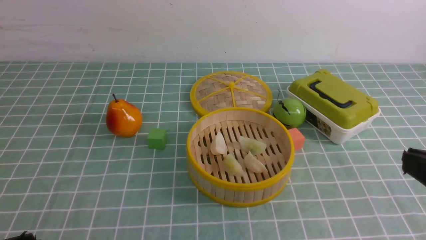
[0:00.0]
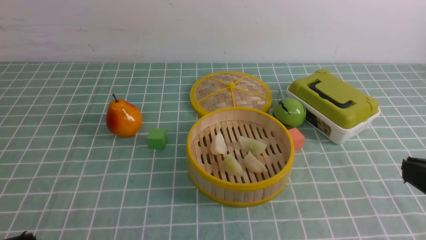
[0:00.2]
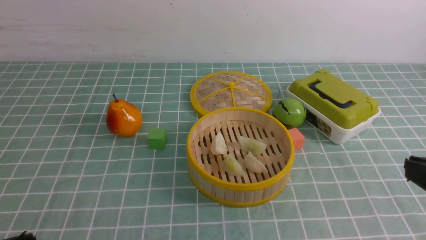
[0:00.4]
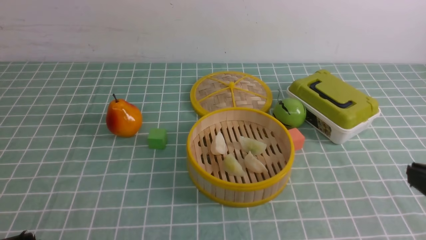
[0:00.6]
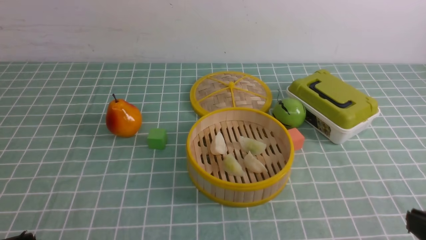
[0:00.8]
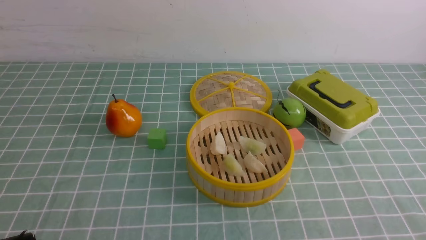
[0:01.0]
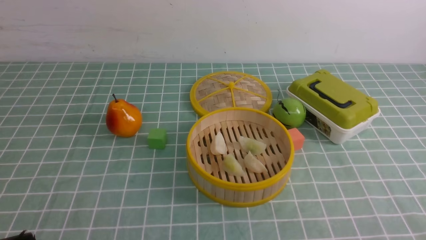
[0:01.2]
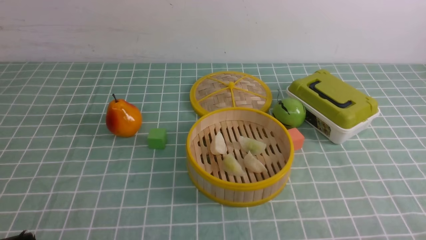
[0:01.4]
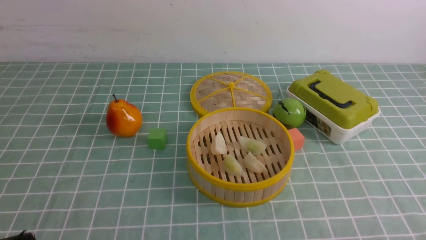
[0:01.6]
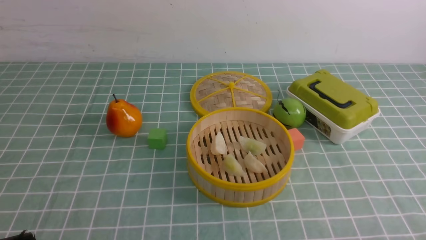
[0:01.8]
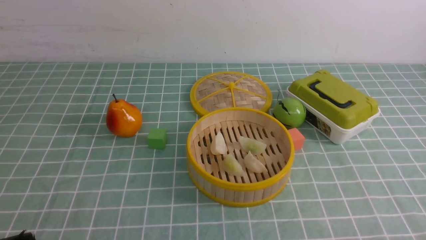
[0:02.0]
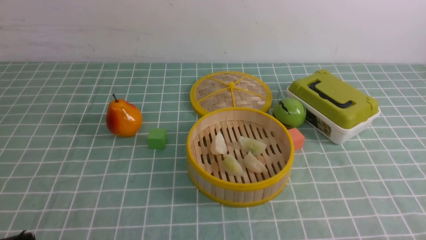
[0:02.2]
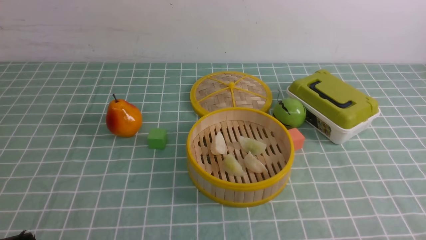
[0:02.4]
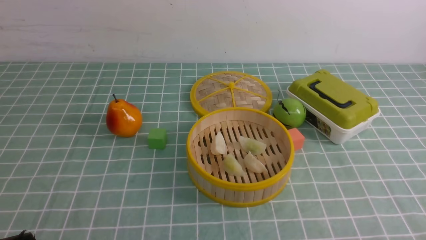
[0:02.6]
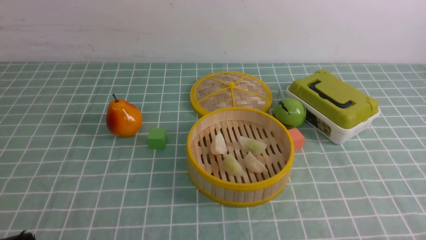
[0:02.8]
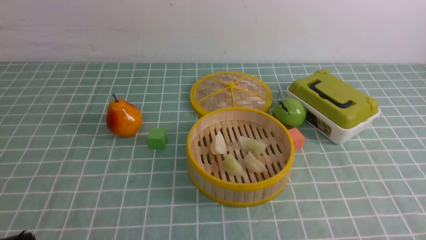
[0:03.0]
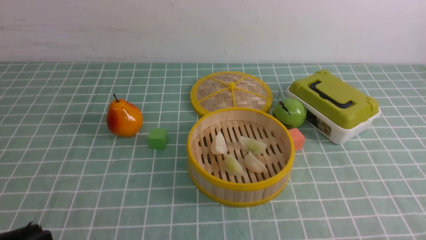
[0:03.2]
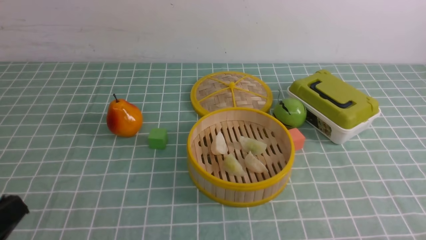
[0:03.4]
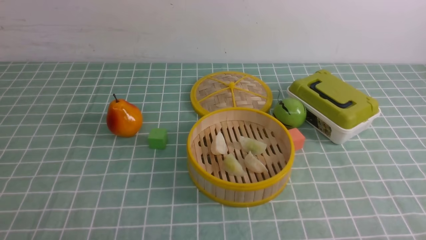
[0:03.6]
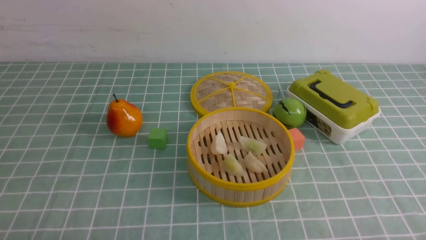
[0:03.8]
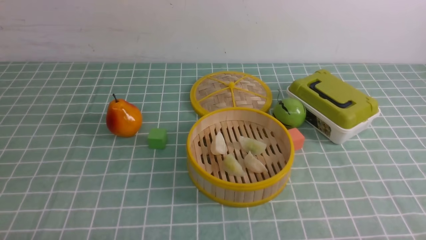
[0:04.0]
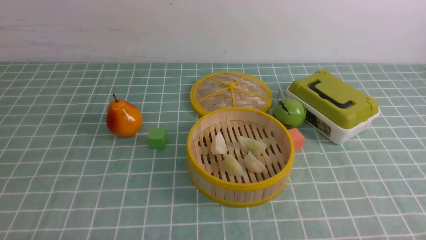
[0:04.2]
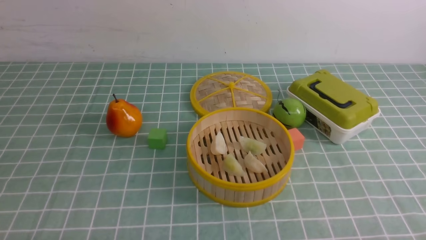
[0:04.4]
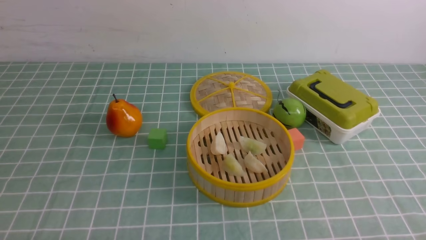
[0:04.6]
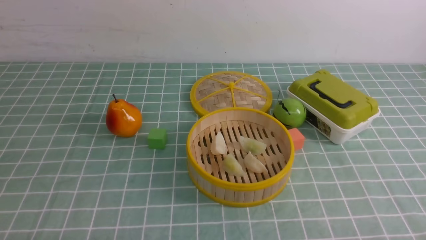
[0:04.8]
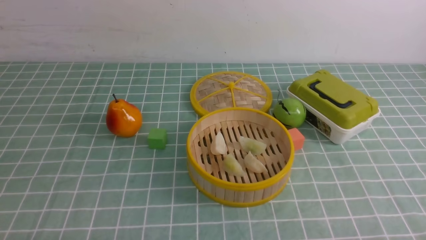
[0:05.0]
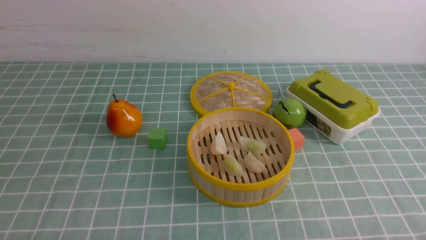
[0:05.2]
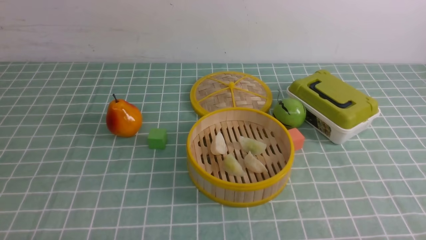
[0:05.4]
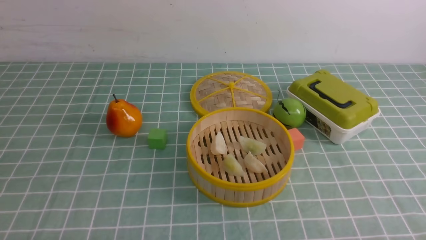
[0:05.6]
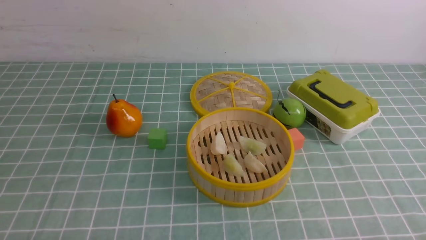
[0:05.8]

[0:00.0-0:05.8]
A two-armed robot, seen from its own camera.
Task of the whole recording: put the dumplings into the steamer on the table with the blue tablecloth.
0:00.0 to 0:01.4: The right gripper goes some 15 cm downward.
0:04.4 to 0:05.8: The two grippers keep their place.

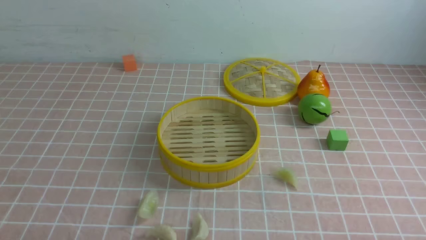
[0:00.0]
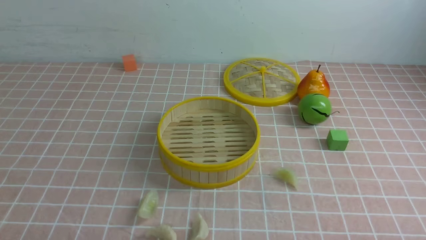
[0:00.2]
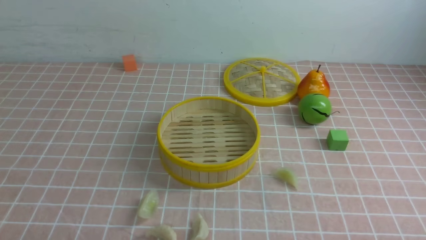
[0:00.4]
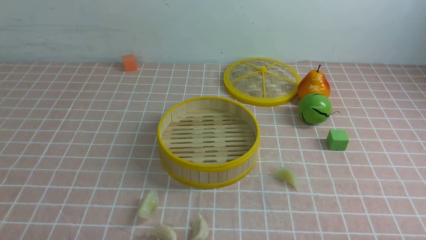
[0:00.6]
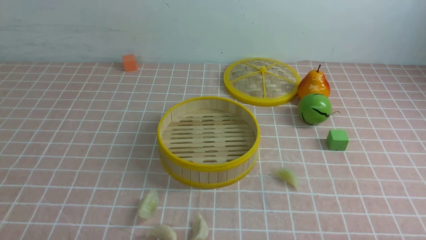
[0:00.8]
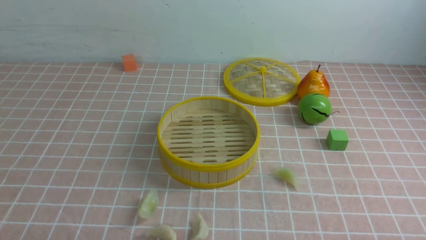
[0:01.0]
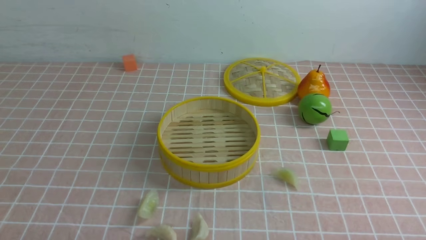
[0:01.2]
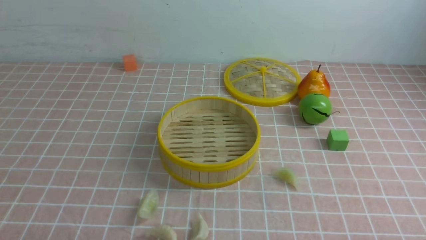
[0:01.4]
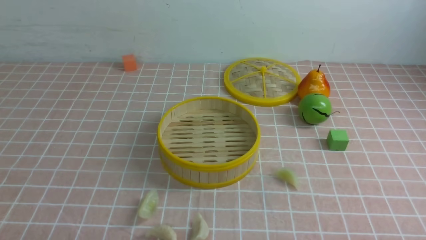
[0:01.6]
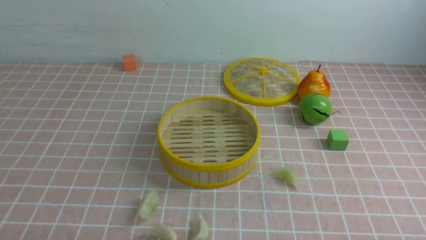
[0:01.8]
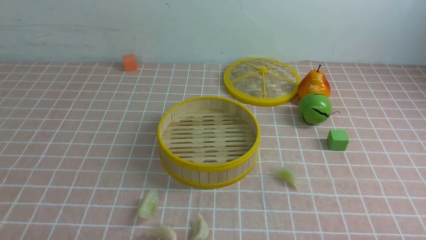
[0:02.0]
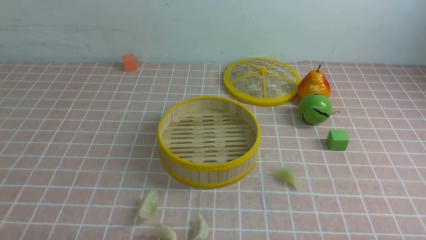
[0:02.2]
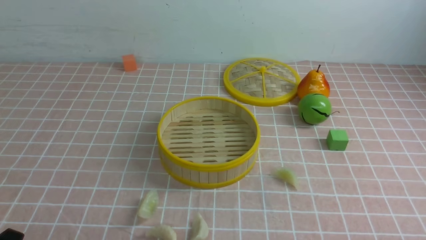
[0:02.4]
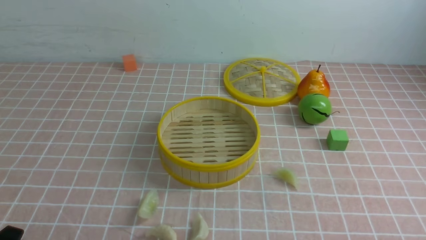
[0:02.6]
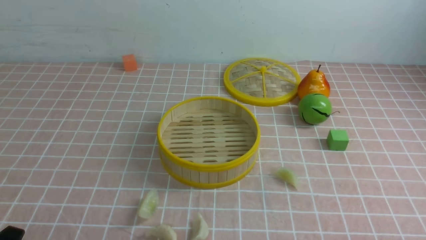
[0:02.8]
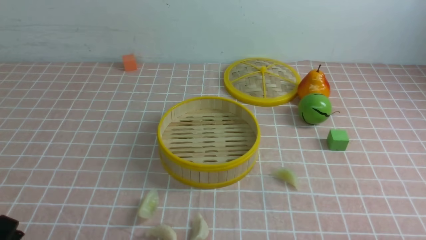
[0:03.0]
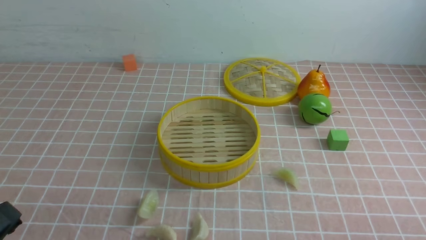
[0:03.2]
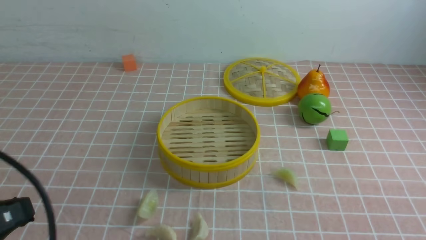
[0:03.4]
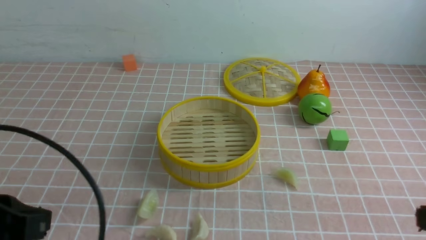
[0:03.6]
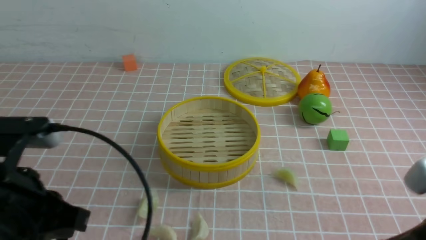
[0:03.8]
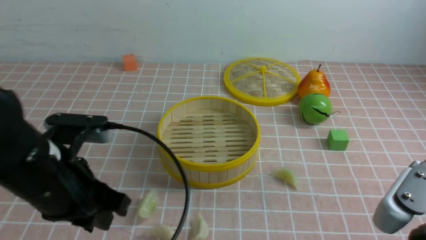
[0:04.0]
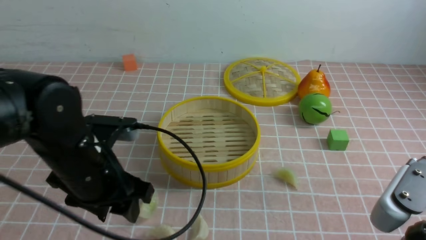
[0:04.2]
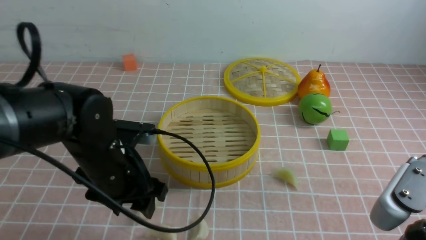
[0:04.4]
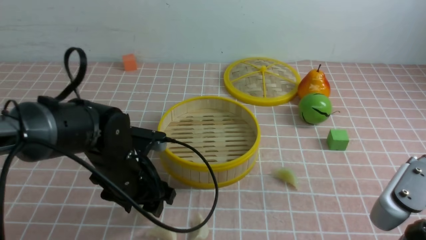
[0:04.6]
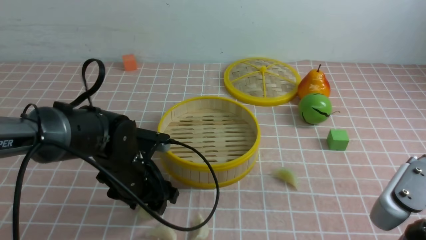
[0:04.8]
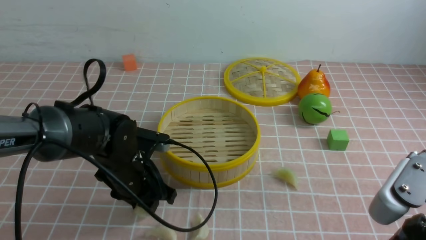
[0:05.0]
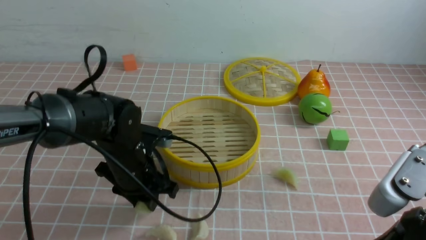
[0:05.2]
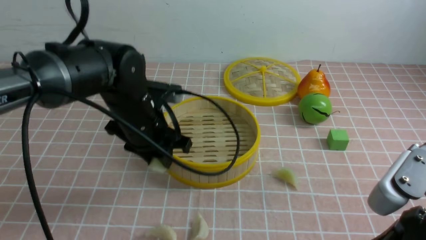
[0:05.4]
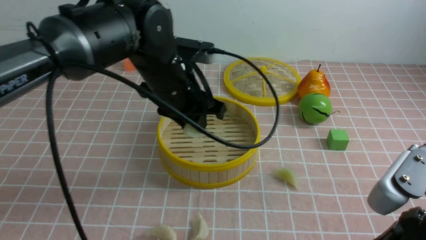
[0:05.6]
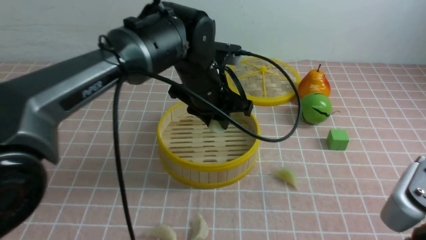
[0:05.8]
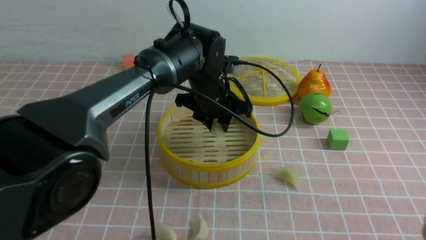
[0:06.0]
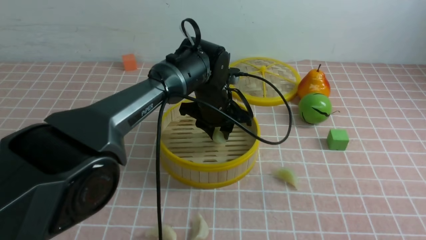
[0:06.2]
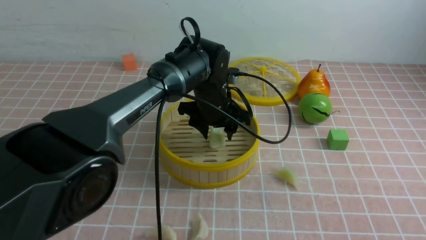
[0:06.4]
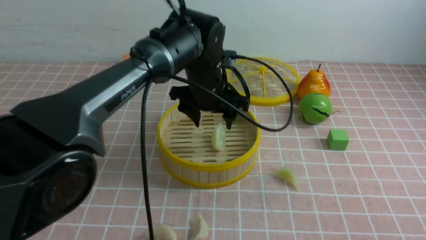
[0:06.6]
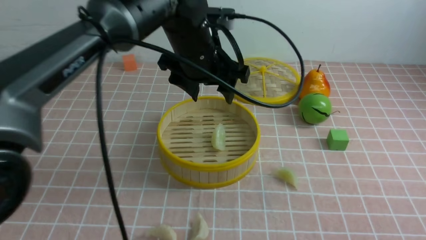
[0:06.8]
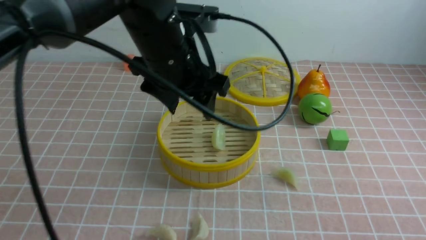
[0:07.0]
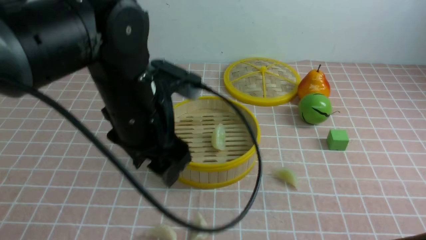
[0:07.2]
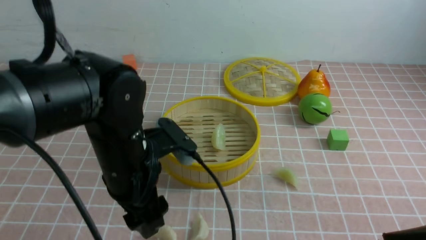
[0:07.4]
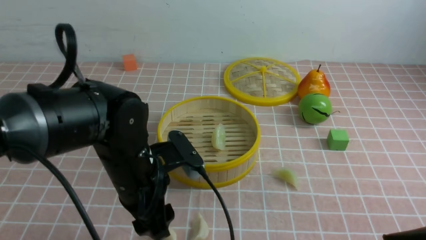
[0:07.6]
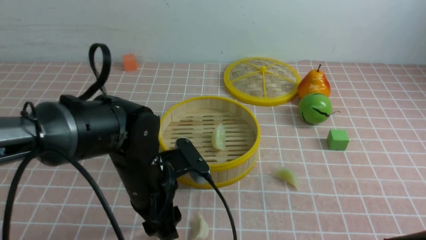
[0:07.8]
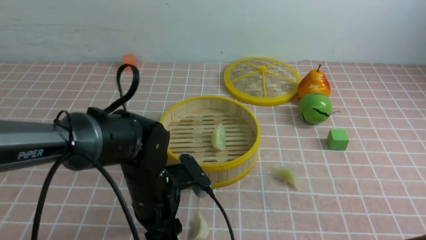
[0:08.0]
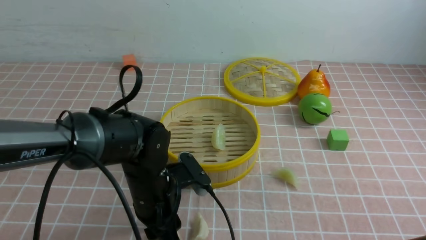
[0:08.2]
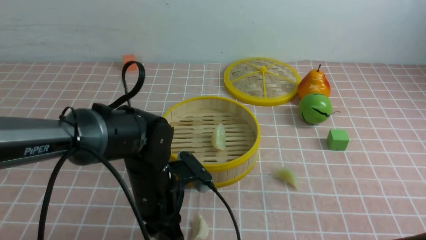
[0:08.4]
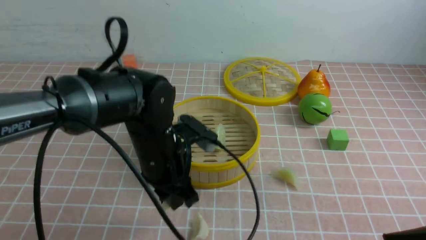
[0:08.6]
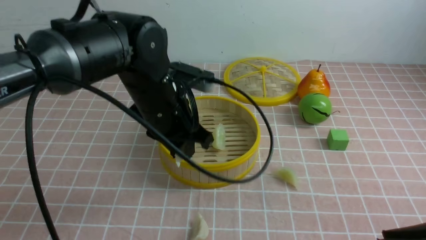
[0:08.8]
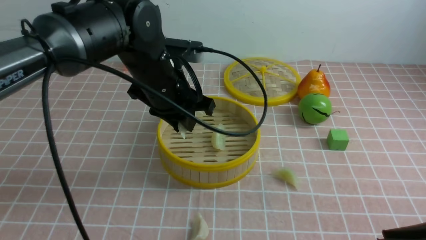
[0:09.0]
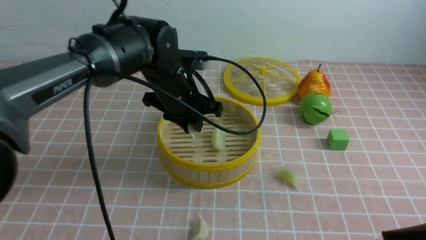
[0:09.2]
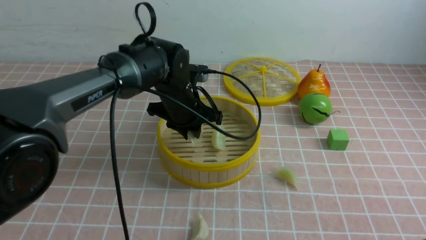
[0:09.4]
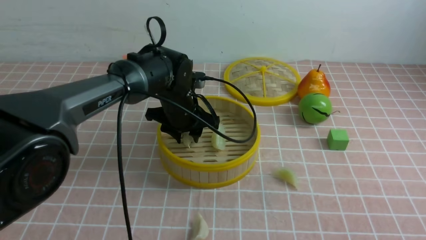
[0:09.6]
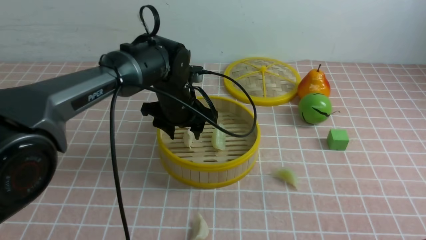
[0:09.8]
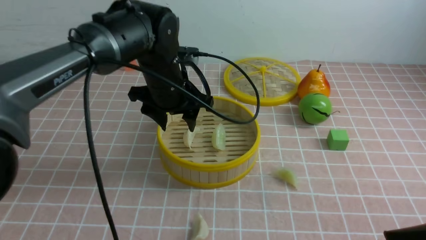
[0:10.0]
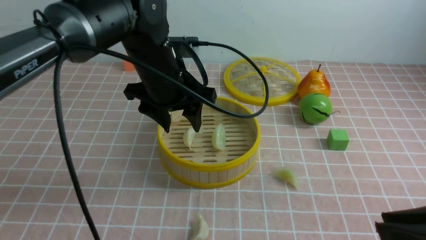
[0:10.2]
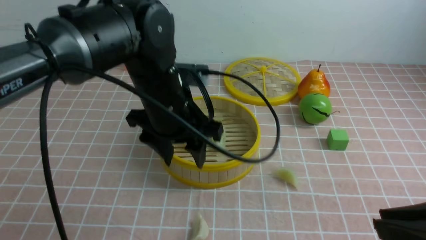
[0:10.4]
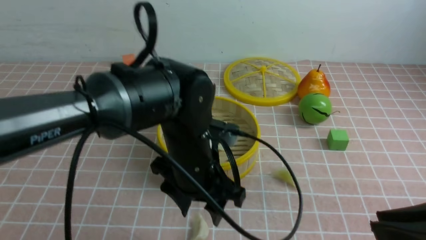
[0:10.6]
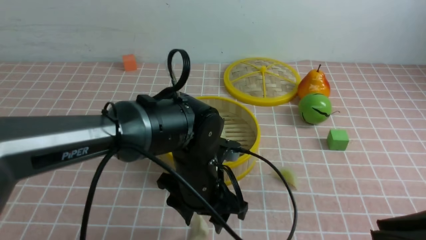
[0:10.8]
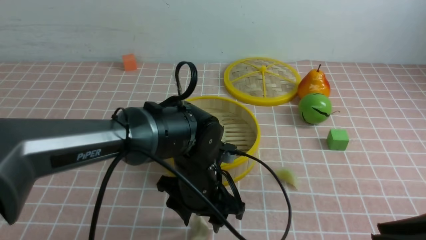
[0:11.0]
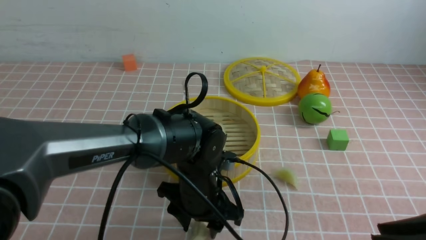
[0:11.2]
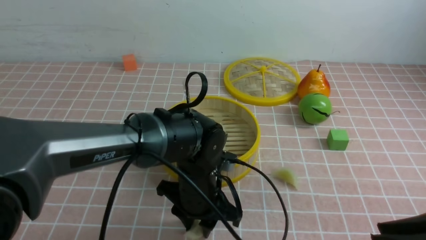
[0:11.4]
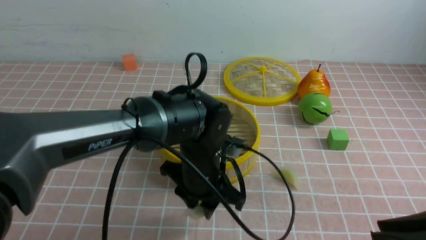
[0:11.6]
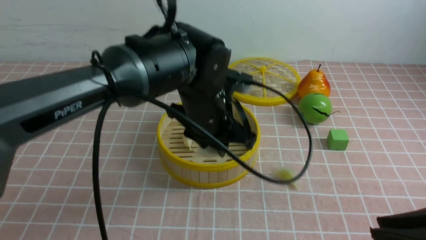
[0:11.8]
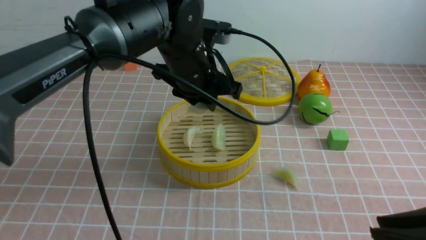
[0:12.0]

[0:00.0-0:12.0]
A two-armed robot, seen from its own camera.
Task of the whole recording: put the dumplings into the steamer on the table with the pink tablecloth.
Step, 0:00.0 to 0:05.2: use the left arm to grab a dumpling.
Step, 0:05.4 to 0:06.4: use the left arm to put the dumpling into the steamer.
Step, 0:06.6 to 0:08.4: use the left arm to grab a dumpling.
Step, 0:08.6 to 0:09.8: use the left arm to put the dumpling into the steamer.
0:03.0 to 0:04.4: The left gripper goes roughly 25 cm forward and to the right, and opens its fingers. The right gripper heads upward, to the left and forward, covering roughly 15 cm, and closes its fingers.
0:04.4 to 0:06.0: The left gripper heads forward and to the right, covering about 20 cm, and closes.
0:06.0 to 0:07.6: The left gripper is displaced backward and to the left by about 15 cm, and opens.
0:07.6 to 0:09.0: The left gripper is displaced forward by approximately 10 cm, and closes.
0:09.0 to 0:10.4: The left gripper moves some 10 cm forward and comes back, and opens up.
0:10.4 to 0:12.0: The left gripper travels downward and back again, some 10 cm each way, and closes up.
